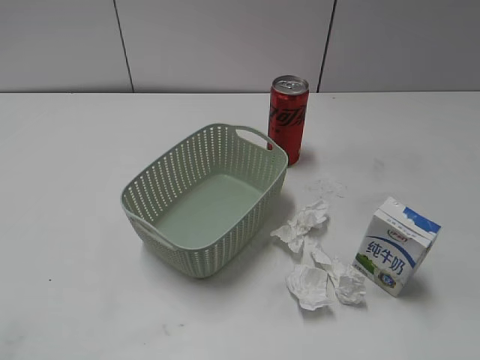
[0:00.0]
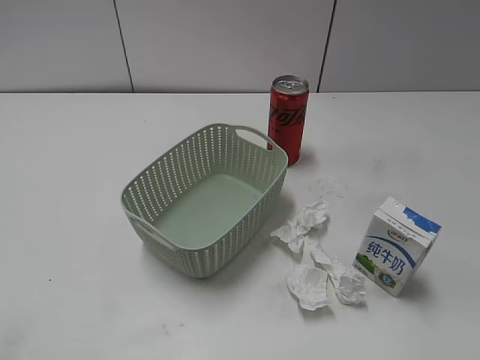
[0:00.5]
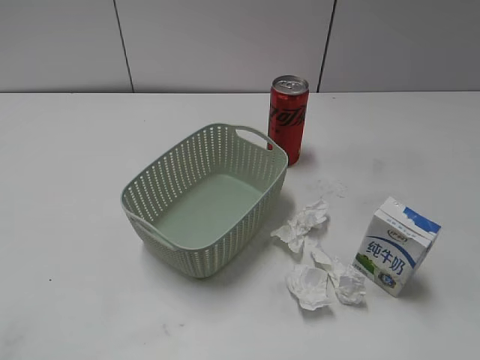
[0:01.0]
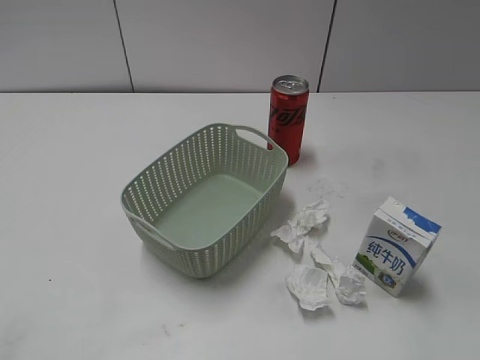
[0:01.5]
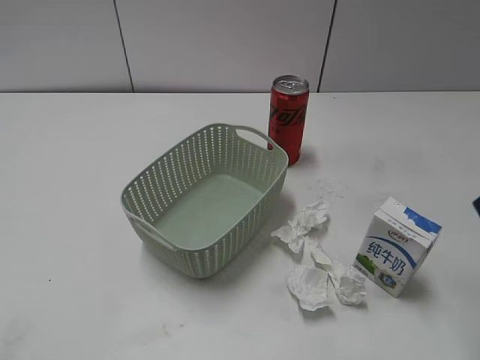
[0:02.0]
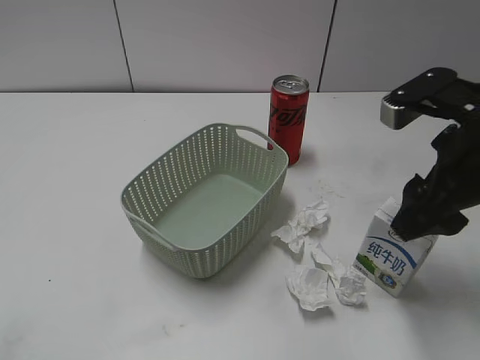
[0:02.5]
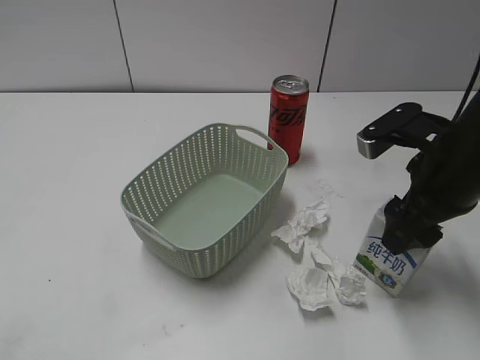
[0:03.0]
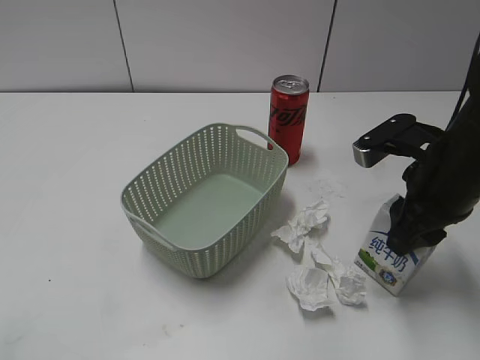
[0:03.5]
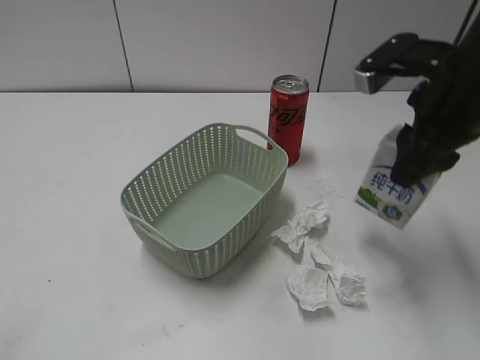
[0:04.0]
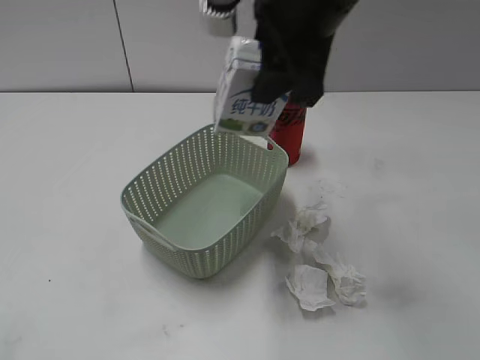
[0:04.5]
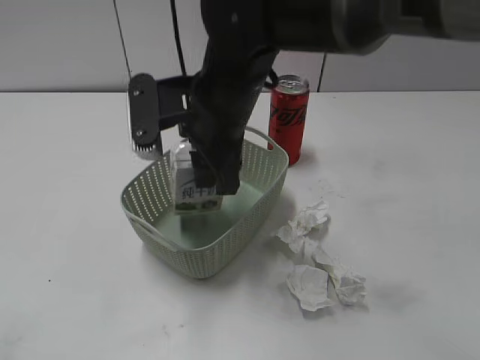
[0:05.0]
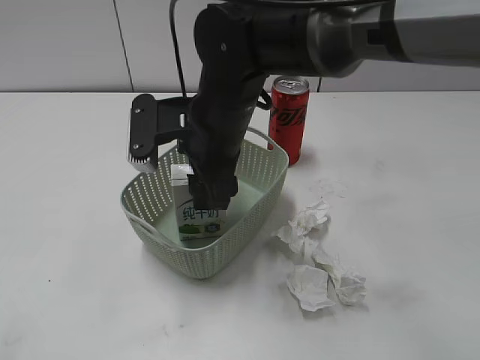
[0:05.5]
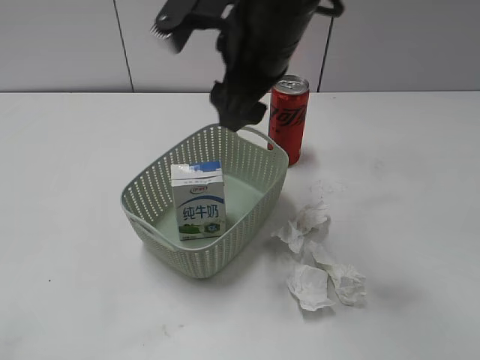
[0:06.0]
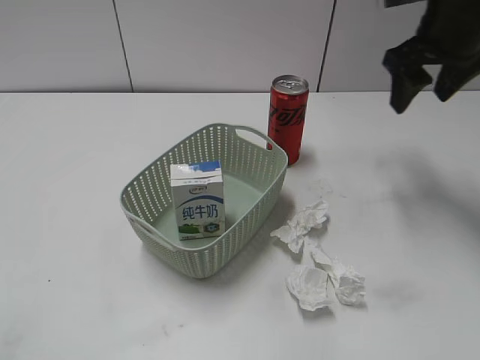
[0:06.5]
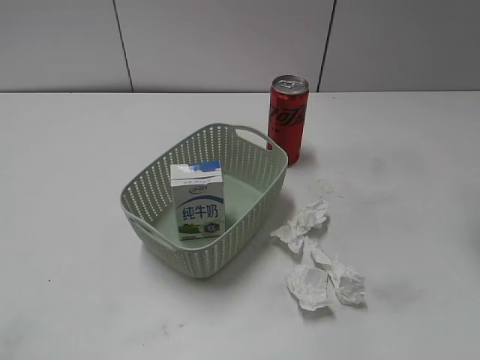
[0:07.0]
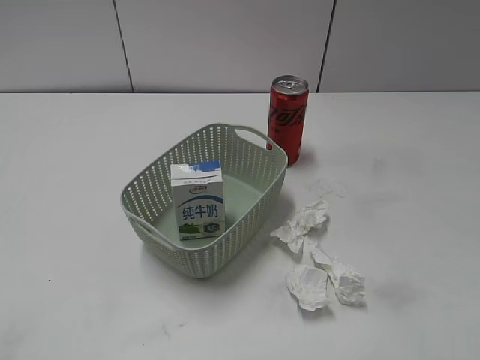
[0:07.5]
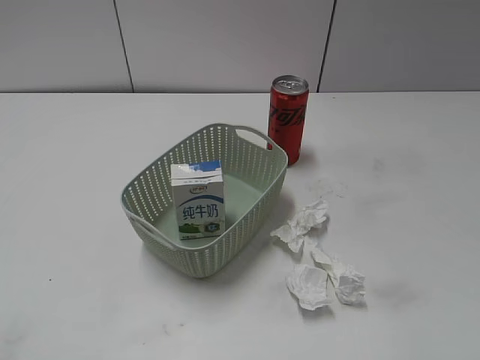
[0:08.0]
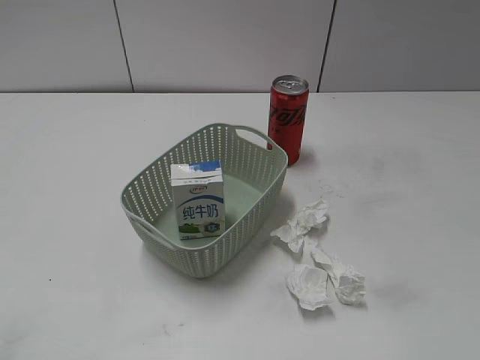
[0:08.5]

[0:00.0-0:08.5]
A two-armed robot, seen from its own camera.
Step, 0:02.0 to 0:03.5: Grasp the milk with right gripper.
Step, 0:04.0 to 0:05.5: Place the milk in the basket with right gripper.
0:02.0 to 0:04.0: The right gripper is displaced forward, to the left and downward by approximately 15 cm, and closes up.
0:04.0 to 0:06.5: The right gripper travels forward by approximately 10 cm, travels to the left and back again, some 20 cm each way, and opens up.
0:06.5 to 0:08.5: The right gripper moves backward, roughly 35 cm.

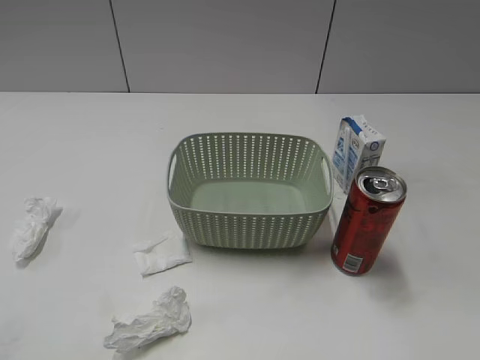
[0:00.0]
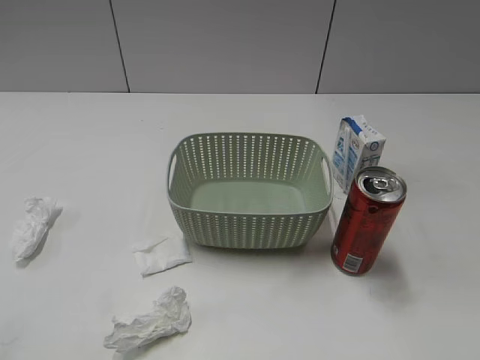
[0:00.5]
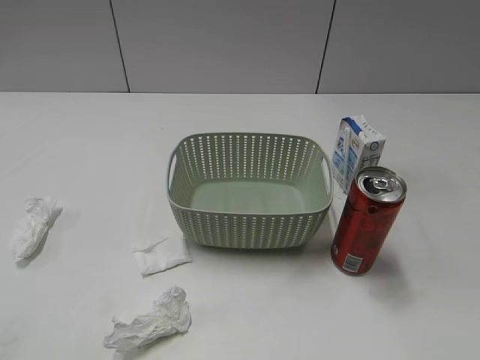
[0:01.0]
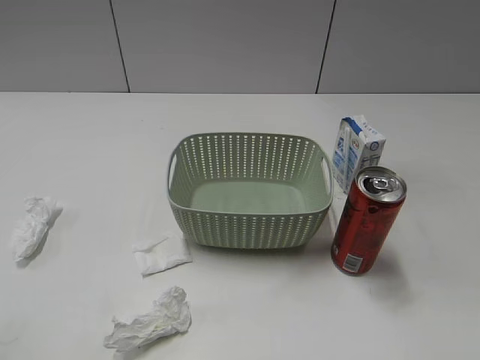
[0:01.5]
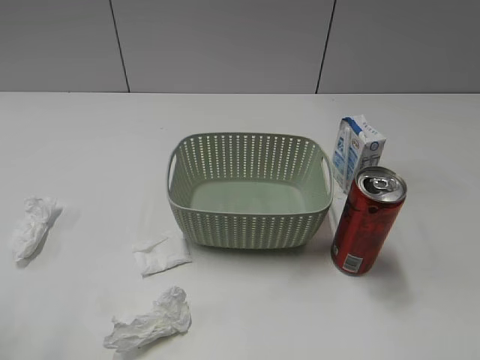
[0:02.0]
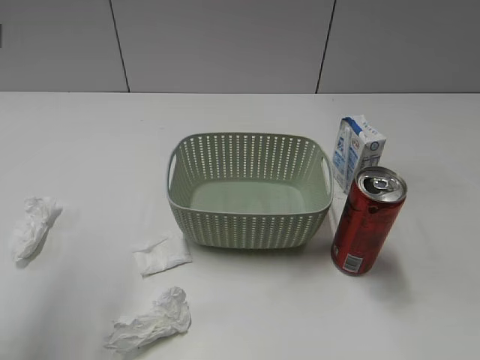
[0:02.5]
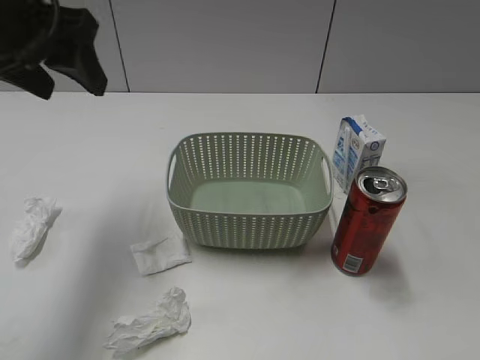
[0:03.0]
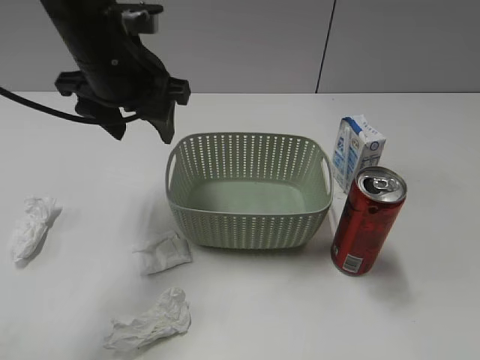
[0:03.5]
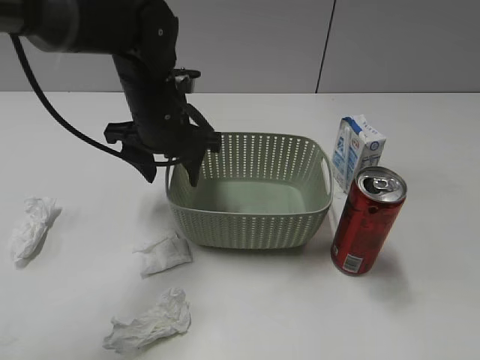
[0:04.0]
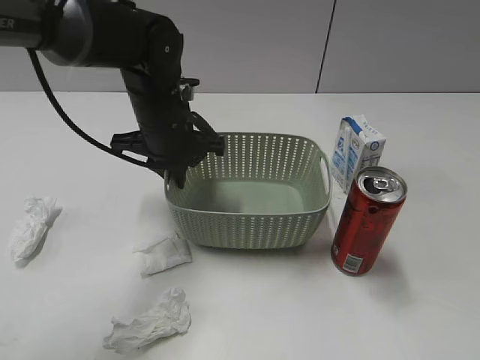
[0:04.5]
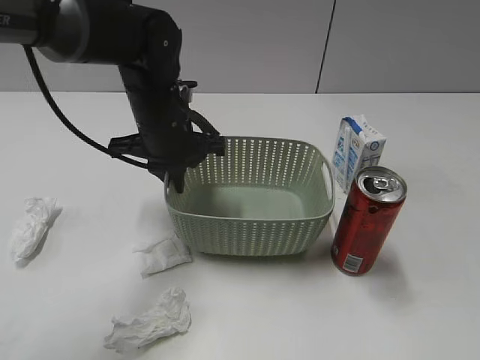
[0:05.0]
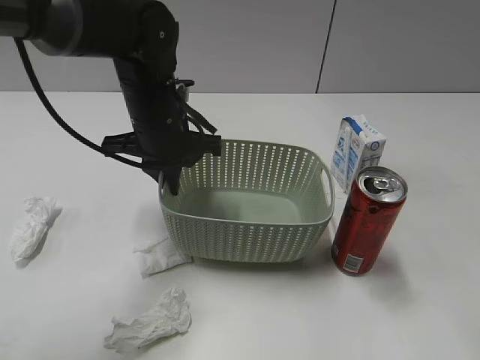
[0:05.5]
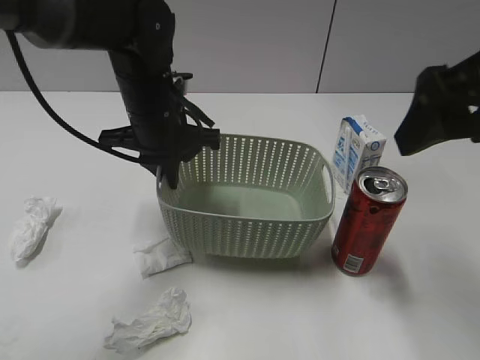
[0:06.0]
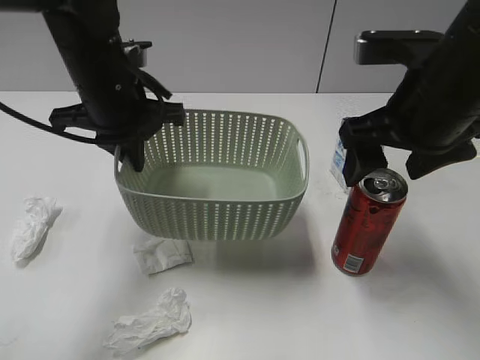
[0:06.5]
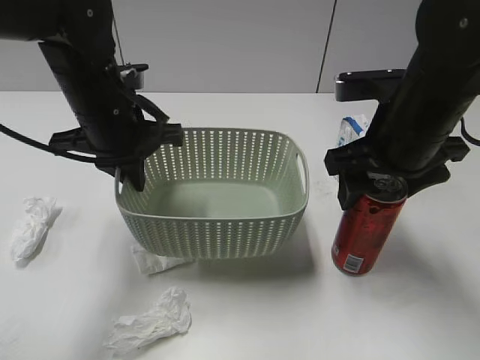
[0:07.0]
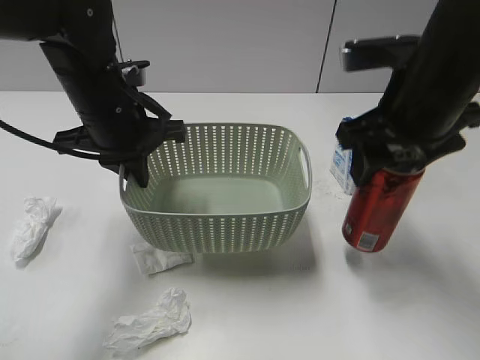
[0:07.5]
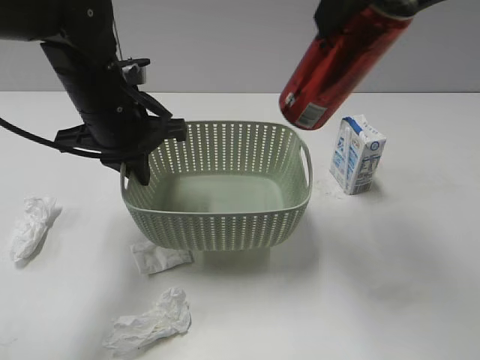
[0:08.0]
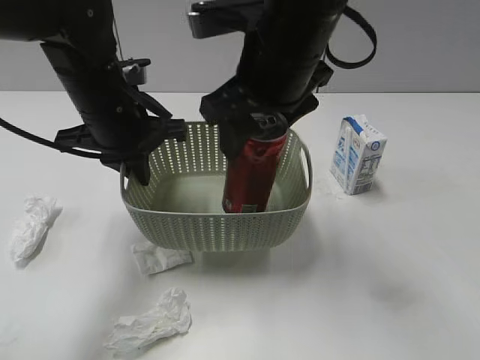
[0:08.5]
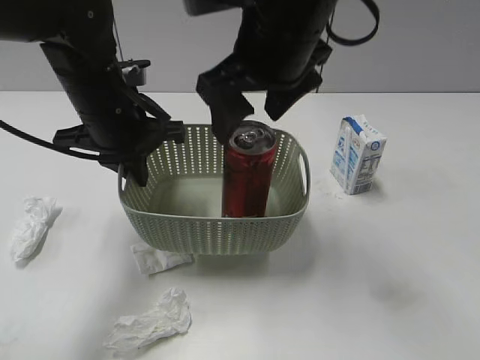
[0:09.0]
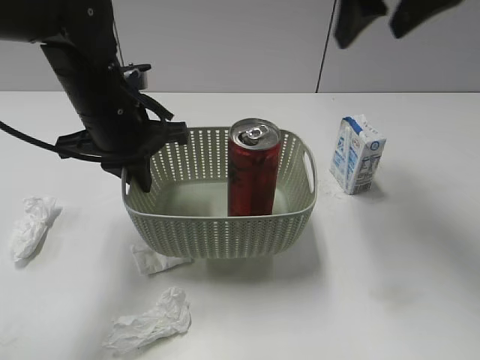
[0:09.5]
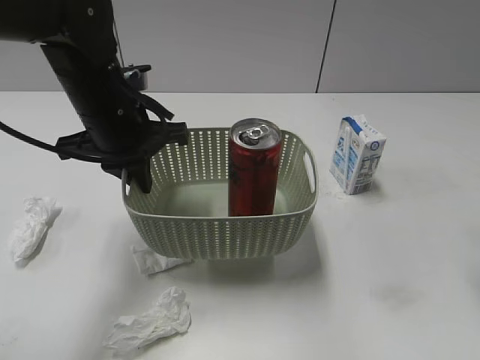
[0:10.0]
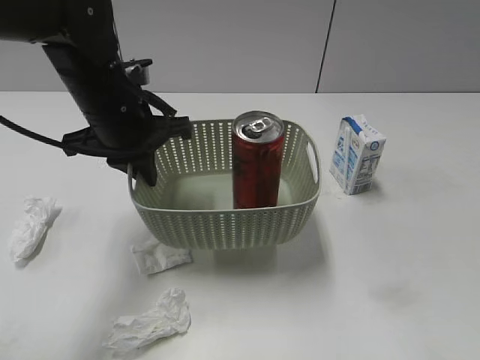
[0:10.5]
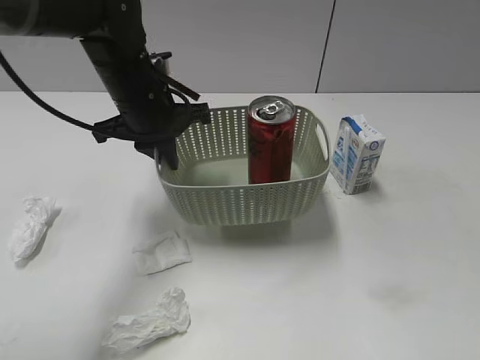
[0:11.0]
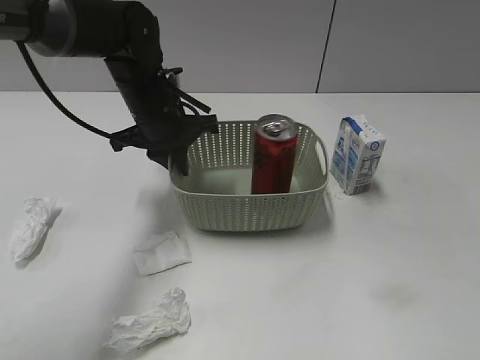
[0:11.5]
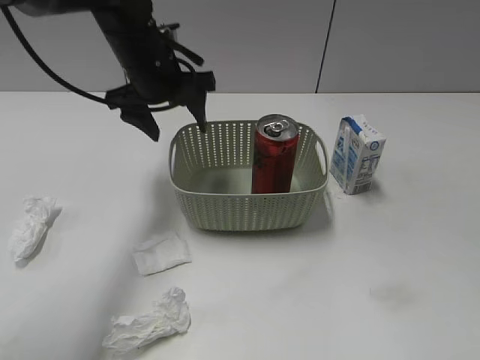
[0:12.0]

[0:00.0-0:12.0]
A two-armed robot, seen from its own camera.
Step, 0:03.0 to 0:04.5: Grasp the basket with left gripper.
Step, 0:06.0 to 0:07.0: Grasp the cola can with right gripper.
Step, 0:07.5 to 0:09.0: Place the cola can in the basket with right gripper.
Step, 0:09.5 to 0:11.5: Place the basket on the table with left gripper.
0:02.0 to 0:04.0: The left gripper travels forward, to the right and downward by approximately 40 cm.
0:04.0 to 0:06.0: The left gripper closes its fingers. The right gripper moves forward and to the left, some 25 cm, and opens its fingers.
0:06.0 to 0:08.0: The right gripper goes about 10 cm upward, to the left and forward, and closes up; the left gripper ends up roughly 5 cm from where it was.
0:08.0 to 0:10.0: The right gripper shifts about 15 cm to the right and downward, and opens.
0:10.0 to 0:12.0: The left gripper shifts some 10 cm forward, and opens up. The right gripper heads backward, covering roughly 25 cm.

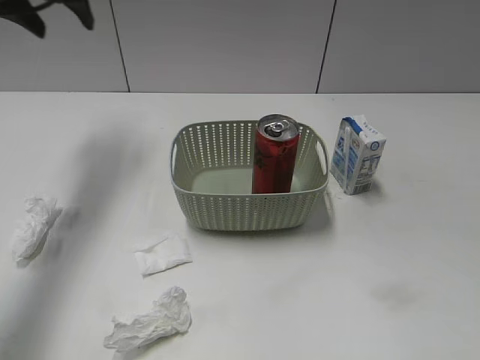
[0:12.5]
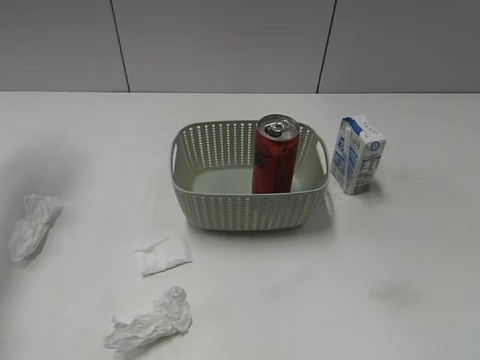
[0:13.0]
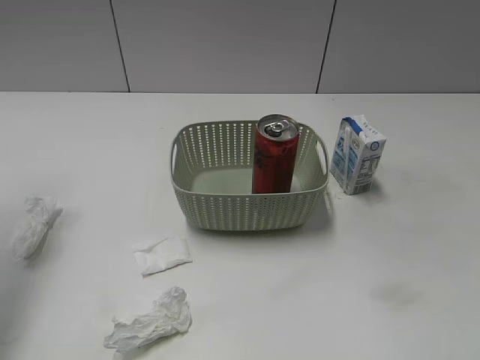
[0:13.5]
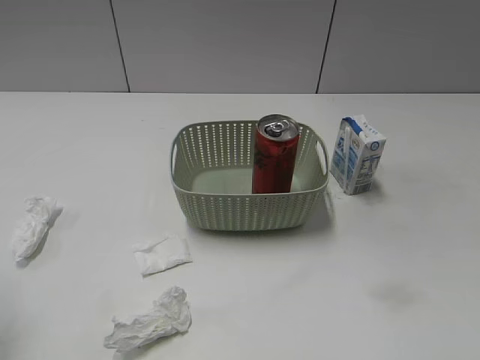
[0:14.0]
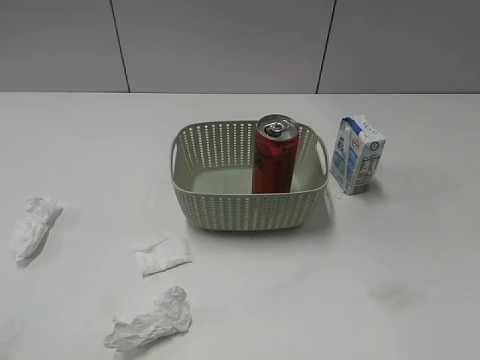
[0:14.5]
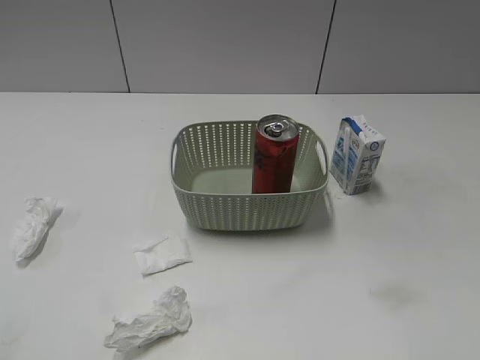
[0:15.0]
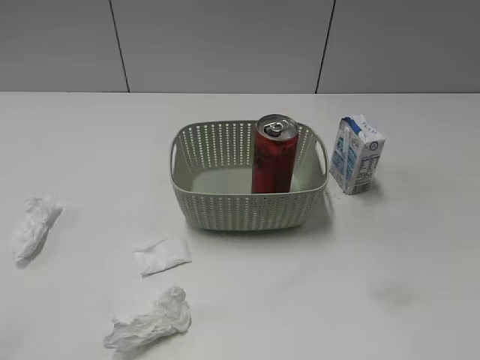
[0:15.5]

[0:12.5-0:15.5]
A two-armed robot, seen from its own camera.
0:12.5 to 0:14.0: The left gripper is displaced backward by approximately 30 cm.

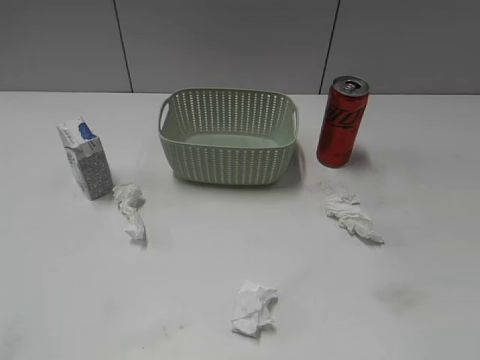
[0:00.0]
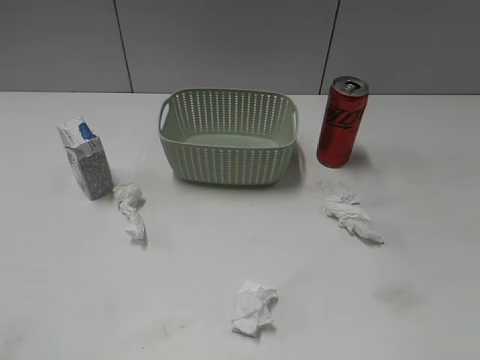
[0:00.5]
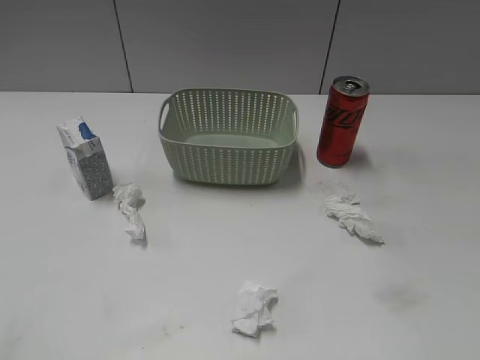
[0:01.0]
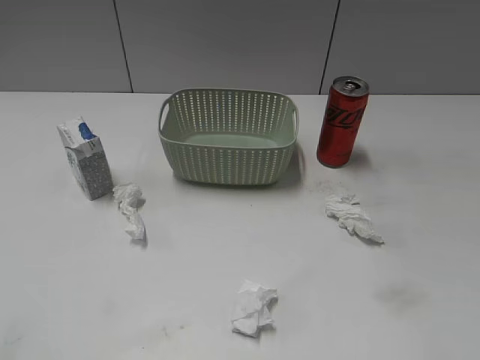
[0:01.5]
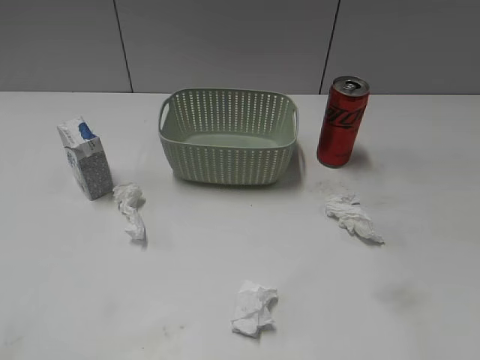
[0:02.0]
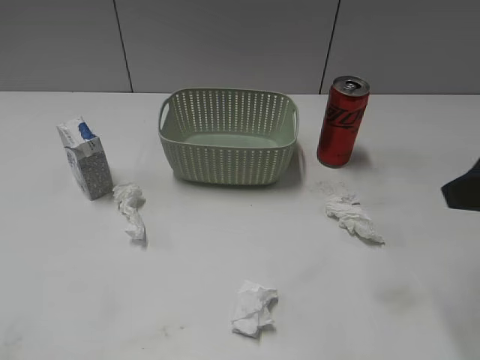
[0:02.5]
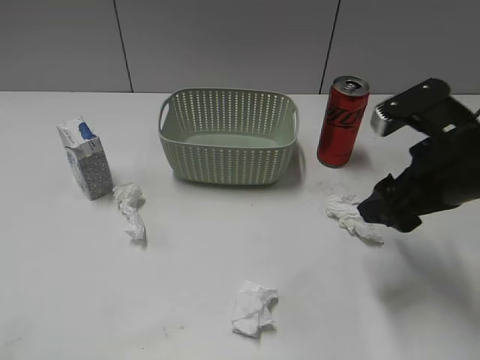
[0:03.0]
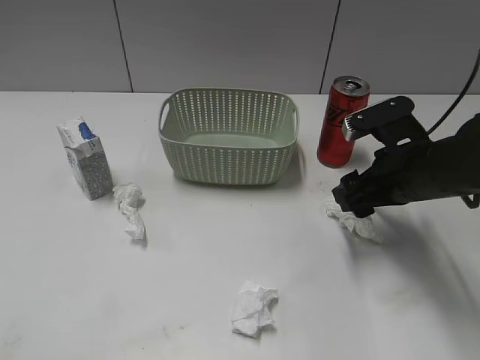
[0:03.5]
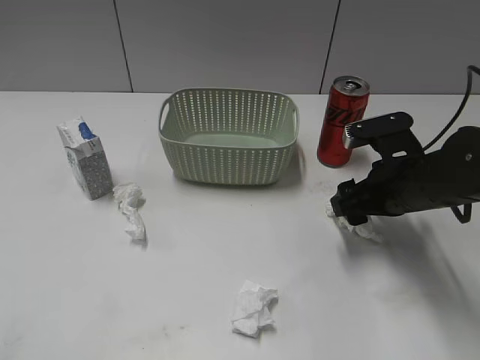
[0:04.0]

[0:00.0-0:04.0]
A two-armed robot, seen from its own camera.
0:02.0 to 0:04.0: The right gripper travels forward, downward and to the left by some 25 cm.
